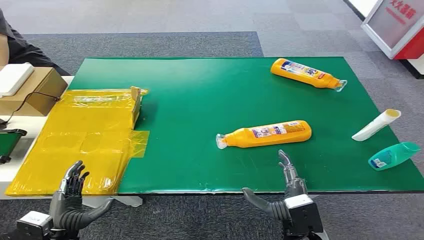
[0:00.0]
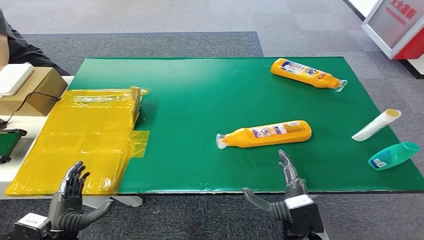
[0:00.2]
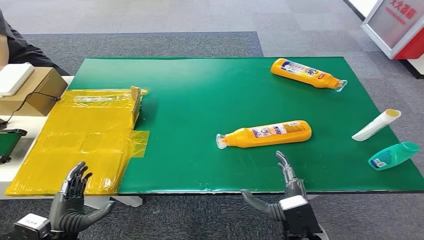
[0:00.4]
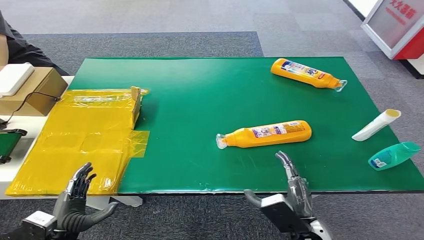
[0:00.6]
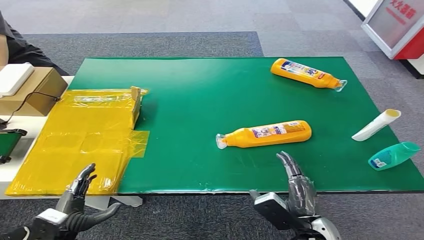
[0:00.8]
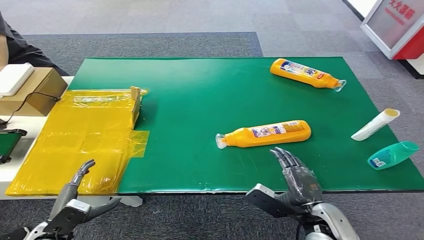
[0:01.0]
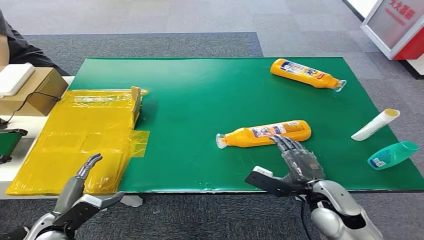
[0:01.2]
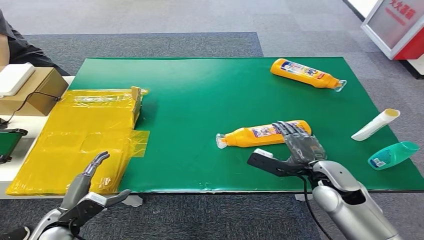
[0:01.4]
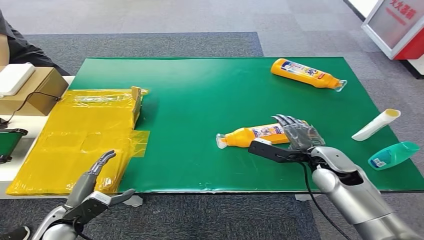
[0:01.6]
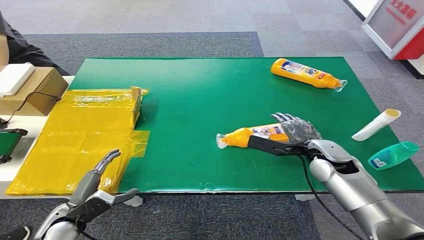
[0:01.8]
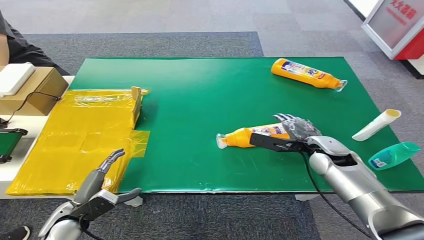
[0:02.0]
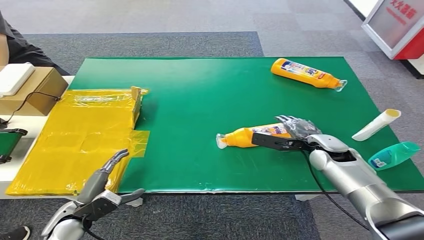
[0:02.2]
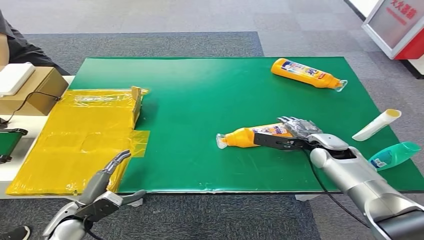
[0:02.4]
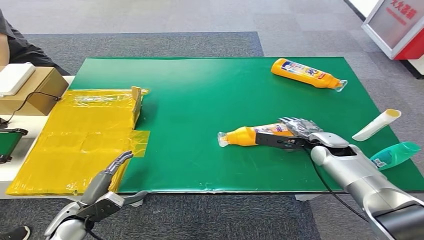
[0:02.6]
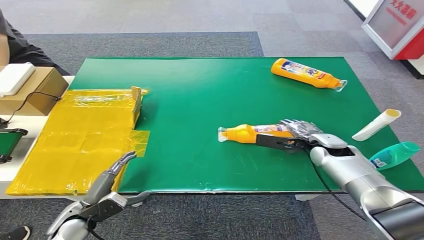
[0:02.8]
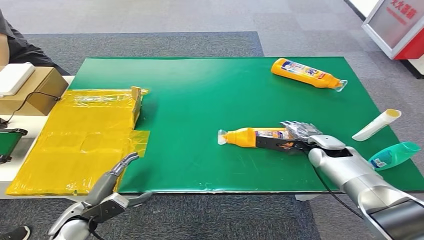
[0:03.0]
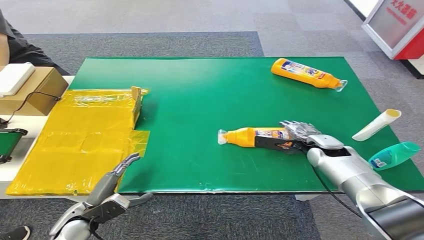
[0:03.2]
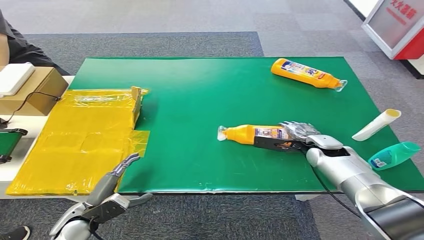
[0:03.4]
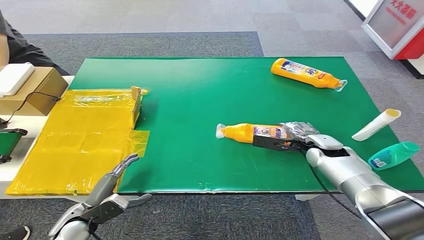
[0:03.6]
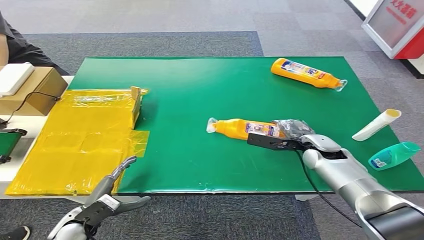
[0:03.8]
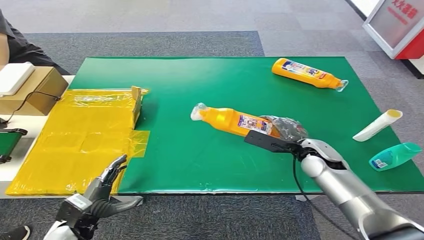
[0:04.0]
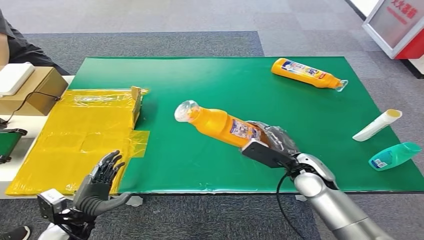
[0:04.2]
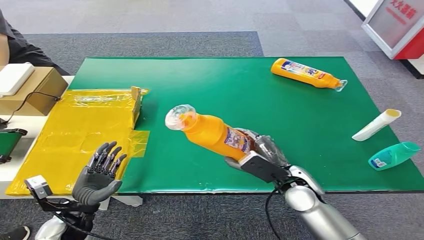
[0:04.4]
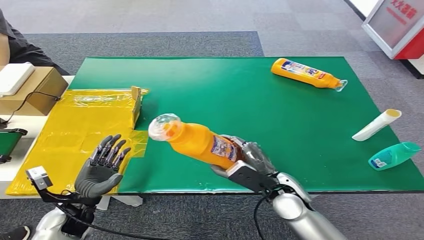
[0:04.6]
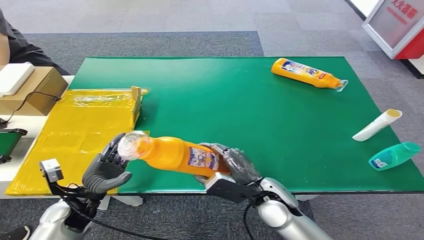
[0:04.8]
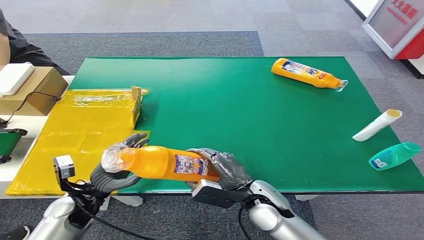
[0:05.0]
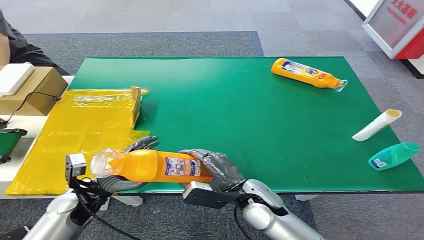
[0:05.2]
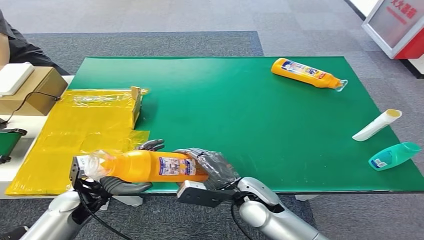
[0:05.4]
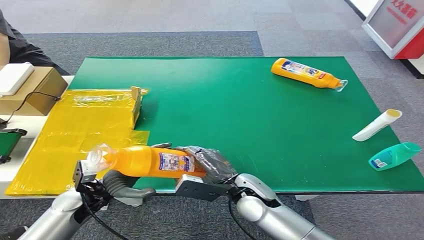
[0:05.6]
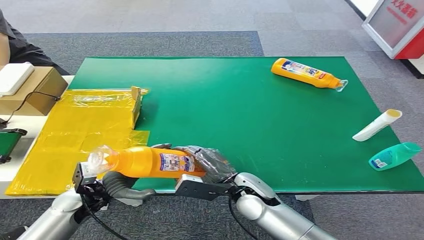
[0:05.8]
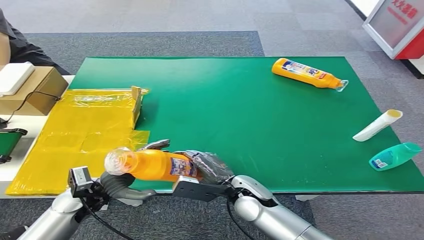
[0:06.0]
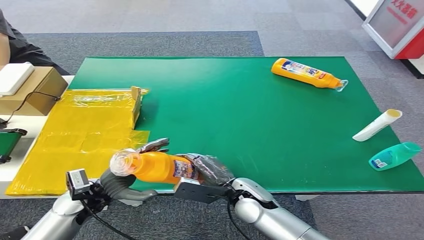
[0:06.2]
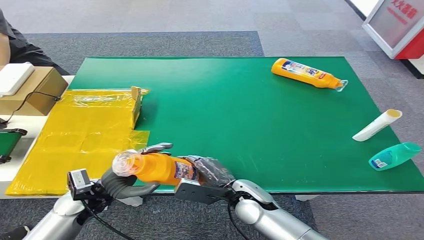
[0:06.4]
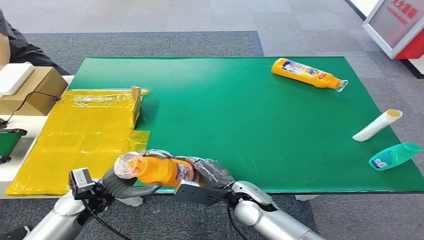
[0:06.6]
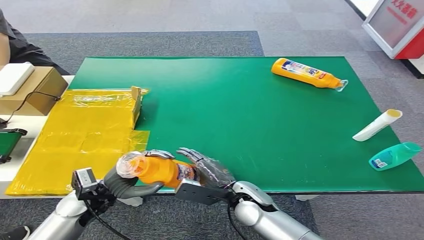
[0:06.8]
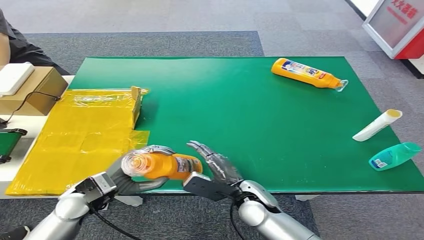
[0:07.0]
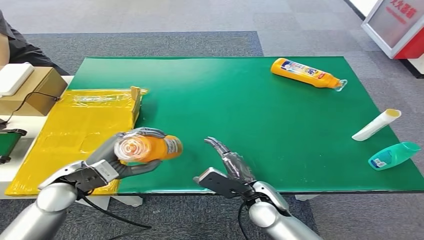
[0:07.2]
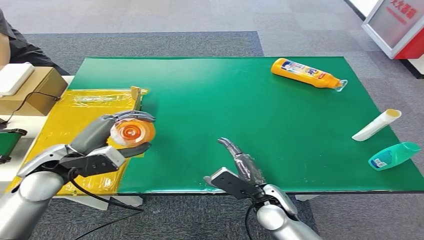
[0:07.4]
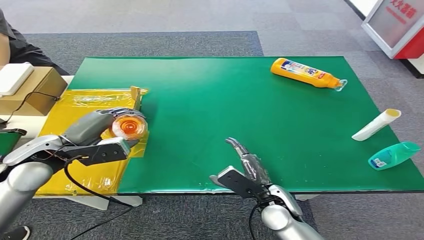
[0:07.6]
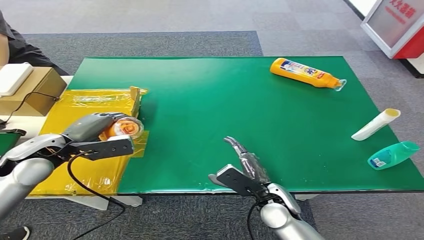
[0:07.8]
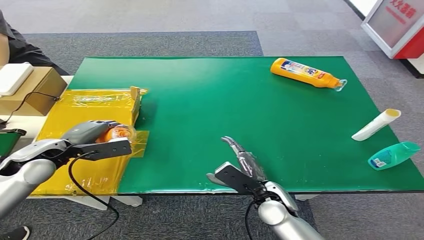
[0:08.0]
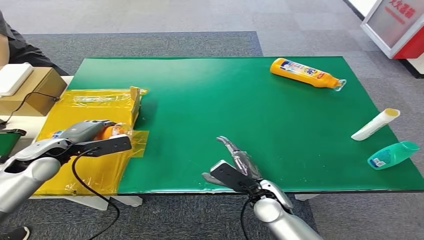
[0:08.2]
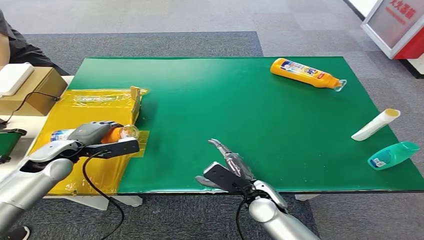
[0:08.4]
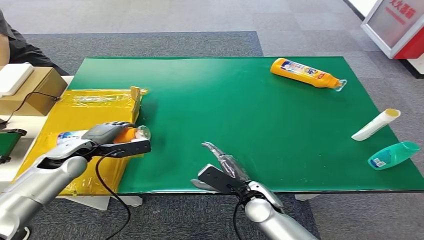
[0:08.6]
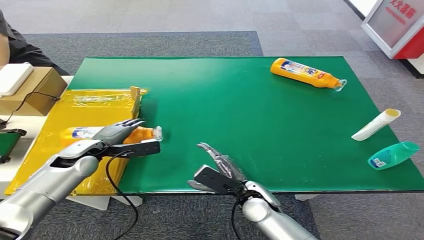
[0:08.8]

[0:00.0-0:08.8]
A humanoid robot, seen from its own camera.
Step, 0:00.0 to 0:04.6: Pick up the bottle from the table.
Step, 0:04.8 to 0:08.8: Turn the bottle to the front side.
0:01.4 to 0:03.0: The right hand shifts roughly 10 cm forward.
0:03.0 to 0:04.4: The right hand is displaced backward and to the left by approximately 15 cm.
0:04.4 to 0:05.8: The left hand travels forward by about 5 cm. The right hand shifts roughly 10 cm to the left.
0:05.8 to 0:07.4: The right hand shifts by approximately 5 cm. The left hand heads upward, covering approximately 15 cm.
0:07.4 to 0:08.8: The left hand is displaced downward and forward by roughly 15 cm.
